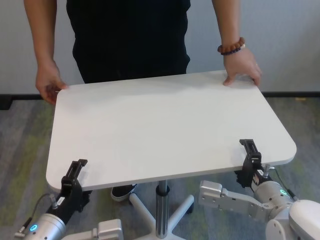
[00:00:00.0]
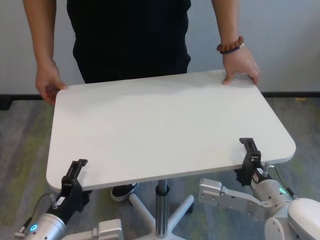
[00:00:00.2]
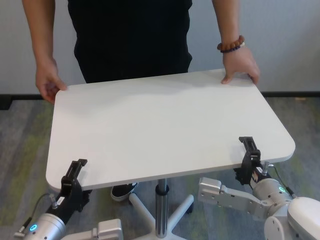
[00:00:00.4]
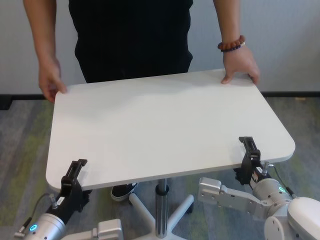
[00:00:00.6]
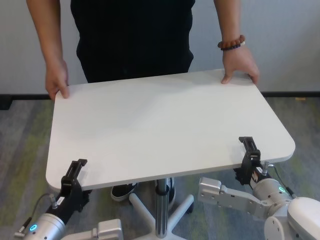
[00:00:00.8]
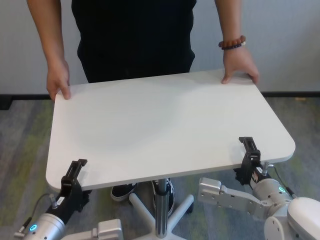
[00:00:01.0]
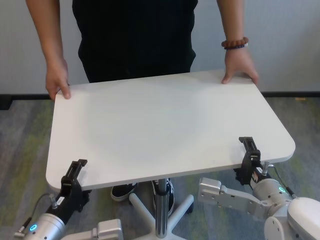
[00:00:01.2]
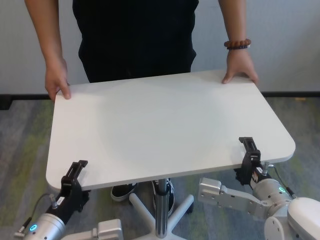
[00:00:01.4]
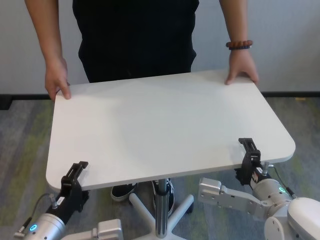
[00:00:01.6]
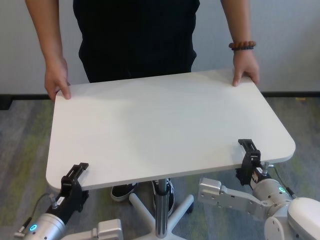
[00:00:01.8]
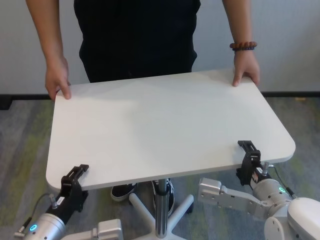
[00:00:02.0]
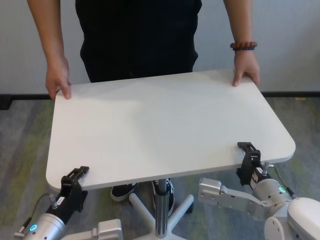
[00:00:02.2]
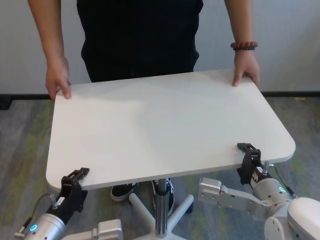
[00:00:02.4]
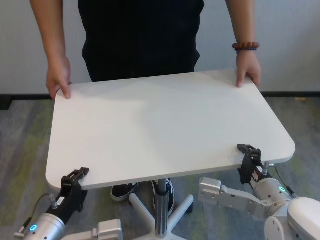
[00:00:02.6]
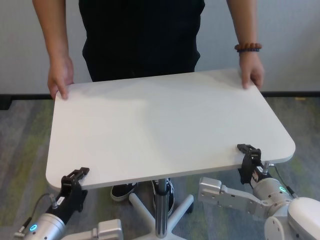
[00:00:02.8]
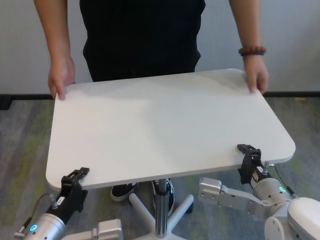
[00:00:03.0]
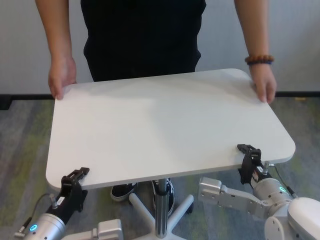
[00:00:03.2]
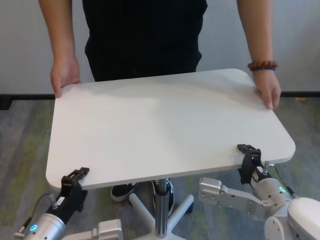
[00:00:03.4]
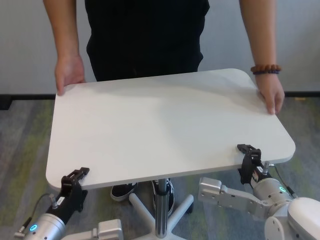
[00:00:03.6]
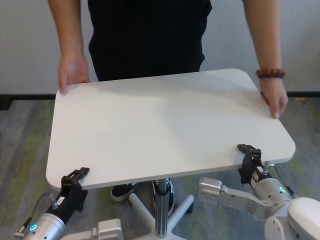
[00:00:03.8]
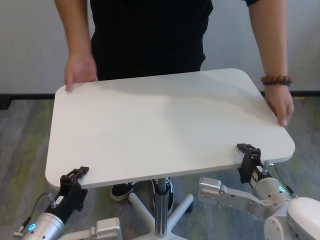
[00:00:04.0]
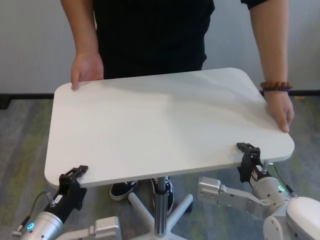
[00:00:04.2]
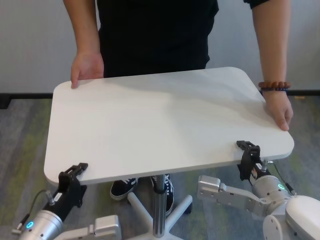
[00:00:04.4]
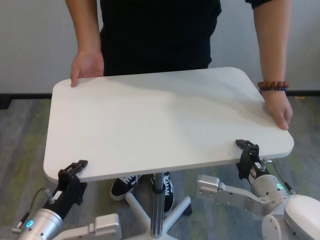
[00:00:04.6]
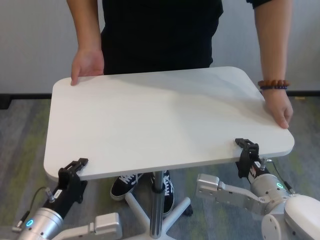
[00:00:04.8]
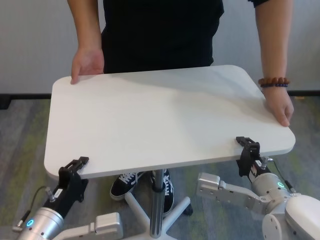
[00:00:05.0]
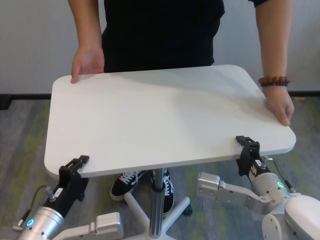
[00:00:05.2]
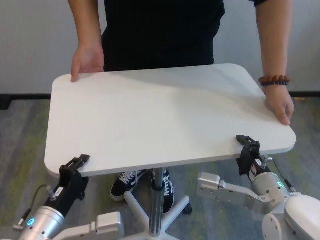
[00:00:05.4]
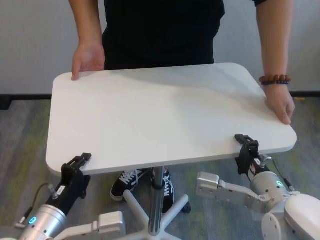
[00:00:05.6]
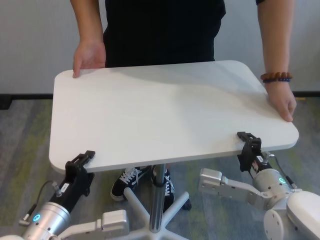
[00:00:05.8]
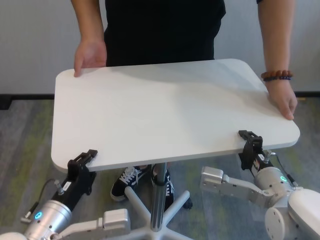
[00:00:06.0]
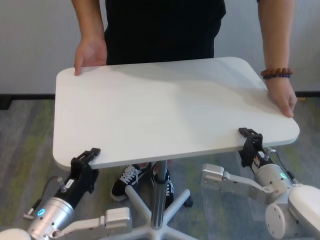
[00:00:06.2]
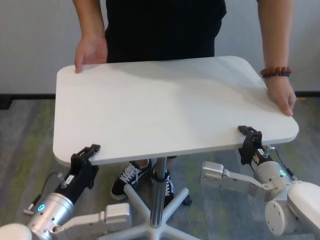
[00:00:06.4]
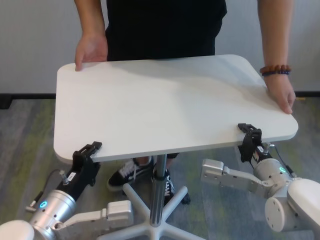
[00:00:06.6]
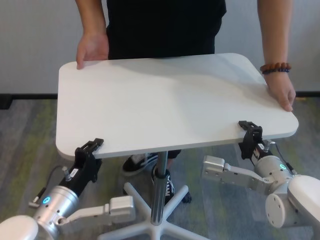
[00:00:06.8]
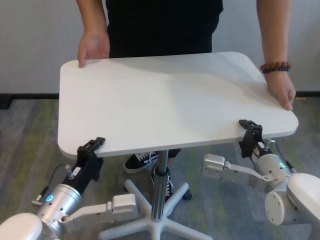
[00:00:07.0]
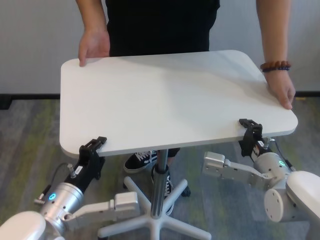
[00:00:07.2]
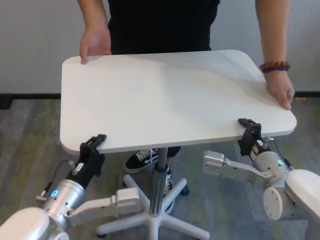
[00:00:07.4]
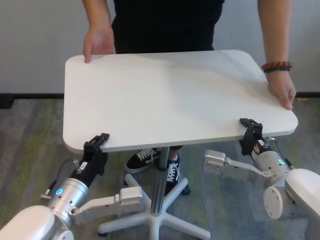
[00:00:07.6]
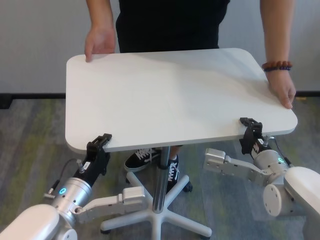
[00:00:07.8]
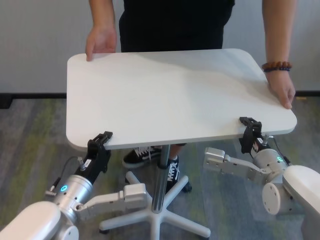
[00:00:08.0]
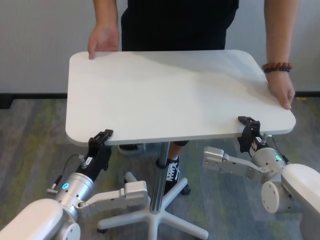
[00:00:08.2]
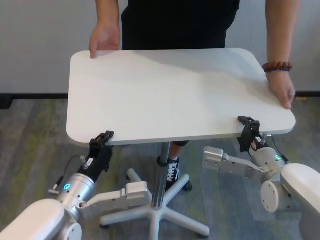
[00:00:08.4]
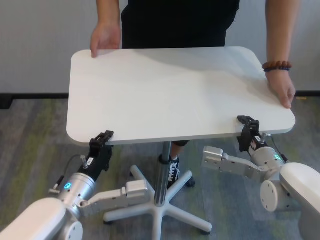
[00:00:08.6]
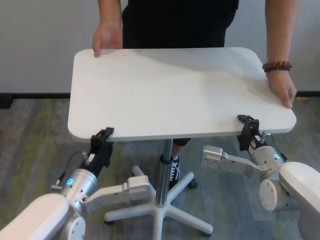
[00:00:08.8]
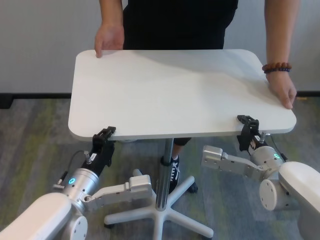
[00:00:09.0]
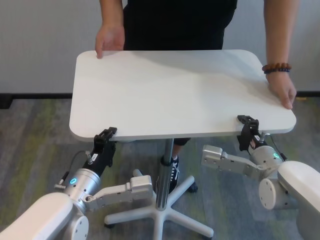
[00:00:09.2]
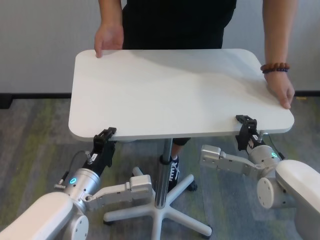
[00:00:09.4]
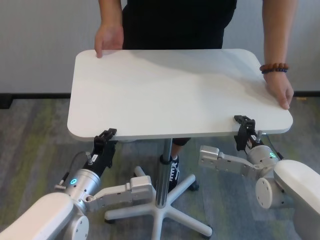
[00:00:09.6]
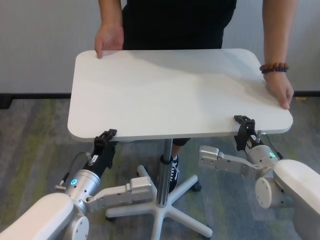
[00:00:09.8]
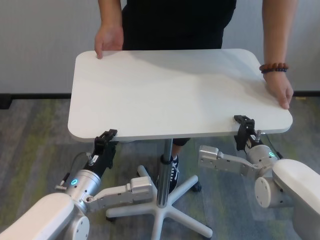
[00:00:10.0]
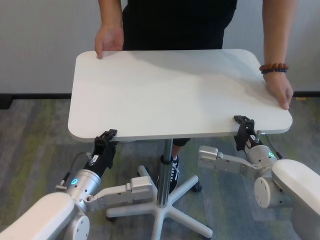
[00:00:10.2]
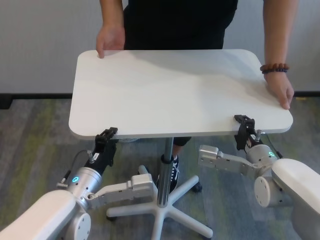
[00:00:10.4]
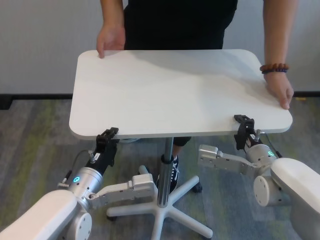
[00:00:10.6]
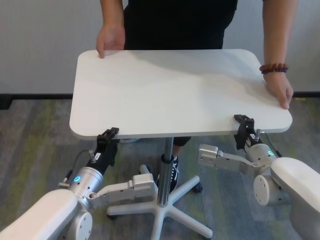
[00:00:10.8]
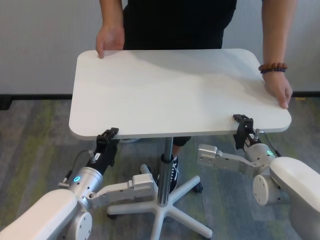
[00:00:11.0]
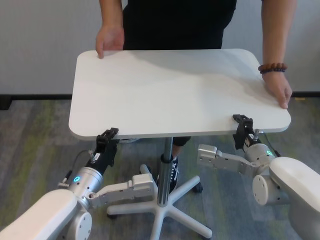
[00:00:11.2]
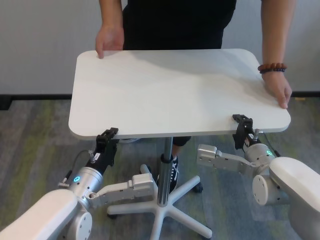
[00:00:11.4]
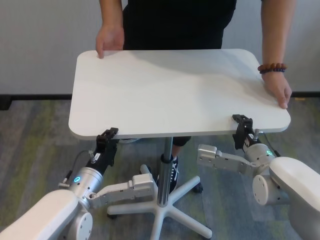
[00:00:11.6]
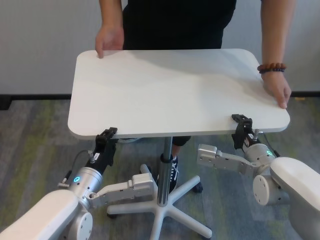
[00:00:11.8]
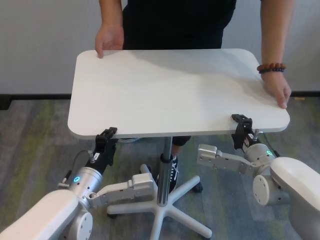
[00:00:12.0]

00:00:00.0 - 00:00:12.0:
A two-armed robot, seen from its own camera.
Task of the whole recording: human machine collaborative table moving.
Step, 00:00:00.0 - 00:00:02.6: Grasp the table with both grippers.

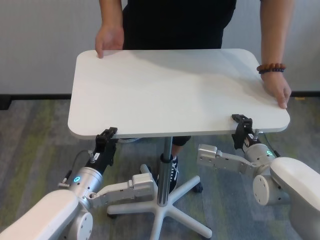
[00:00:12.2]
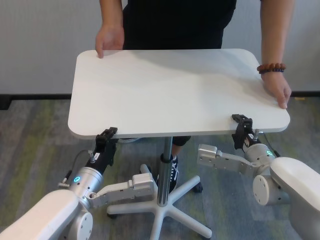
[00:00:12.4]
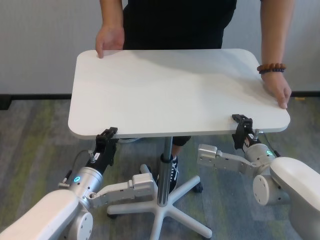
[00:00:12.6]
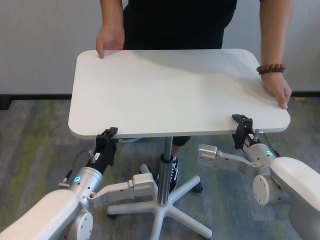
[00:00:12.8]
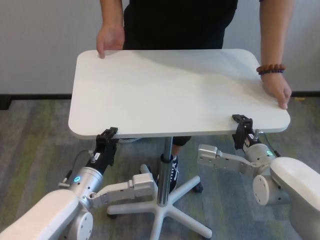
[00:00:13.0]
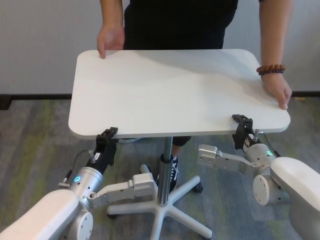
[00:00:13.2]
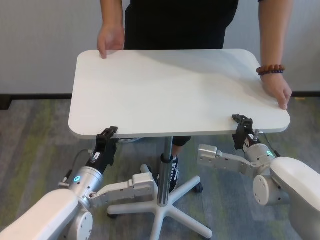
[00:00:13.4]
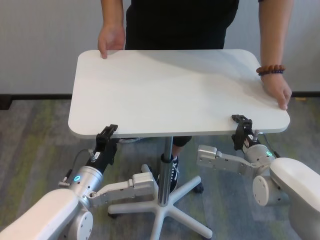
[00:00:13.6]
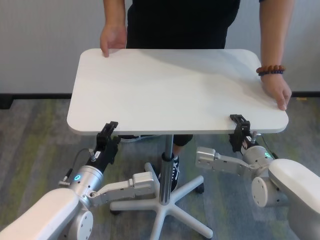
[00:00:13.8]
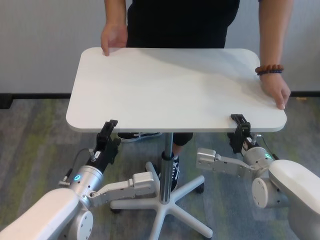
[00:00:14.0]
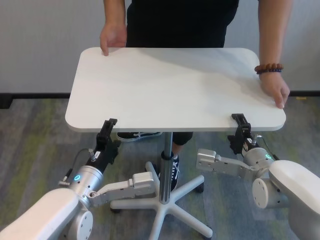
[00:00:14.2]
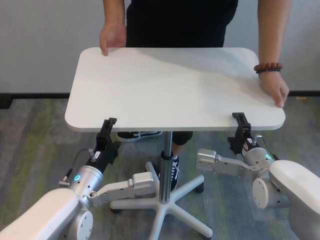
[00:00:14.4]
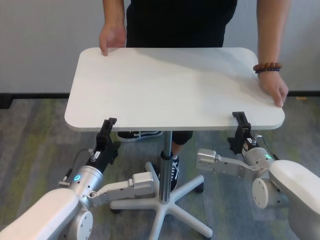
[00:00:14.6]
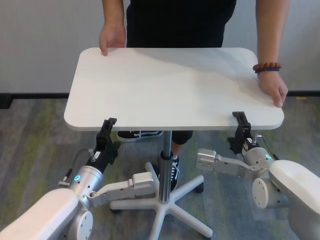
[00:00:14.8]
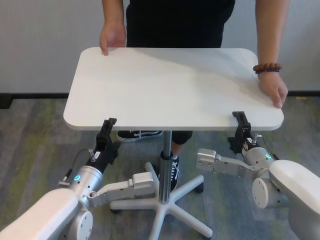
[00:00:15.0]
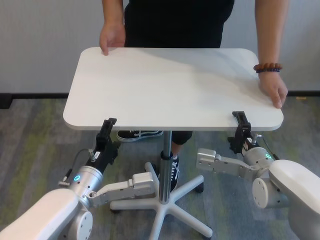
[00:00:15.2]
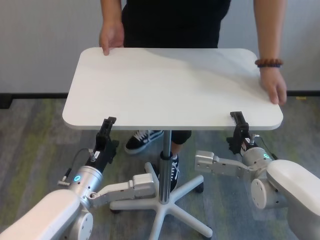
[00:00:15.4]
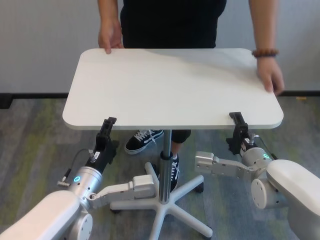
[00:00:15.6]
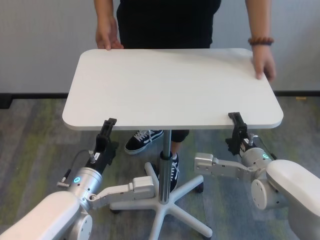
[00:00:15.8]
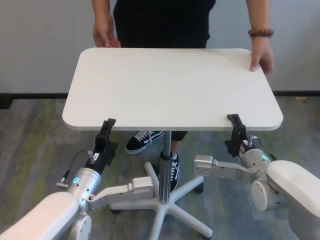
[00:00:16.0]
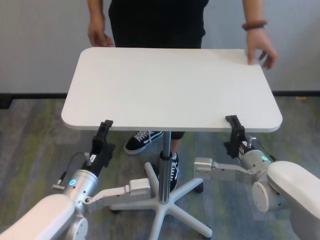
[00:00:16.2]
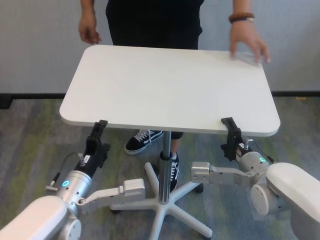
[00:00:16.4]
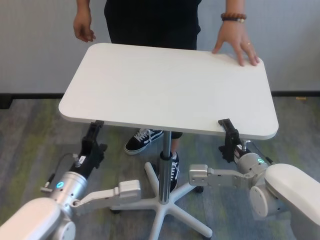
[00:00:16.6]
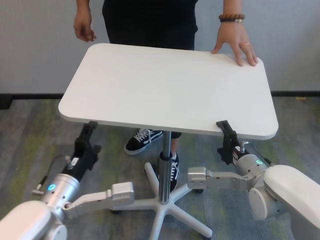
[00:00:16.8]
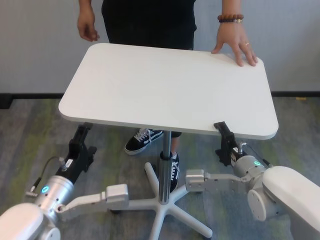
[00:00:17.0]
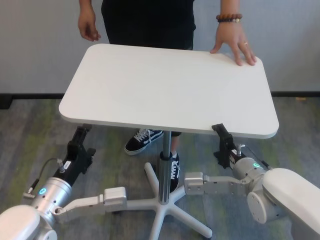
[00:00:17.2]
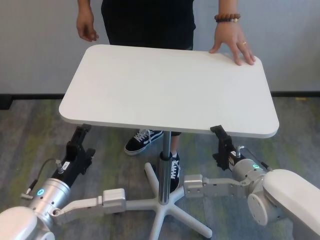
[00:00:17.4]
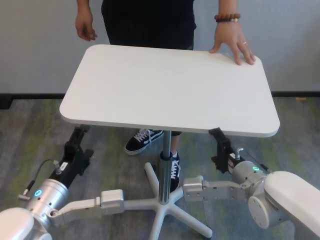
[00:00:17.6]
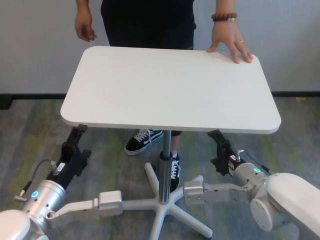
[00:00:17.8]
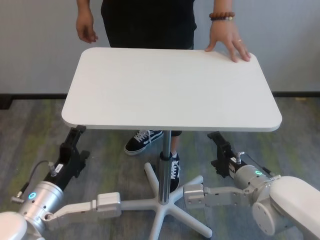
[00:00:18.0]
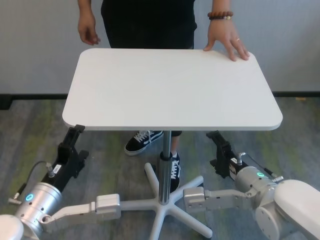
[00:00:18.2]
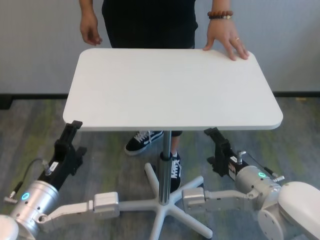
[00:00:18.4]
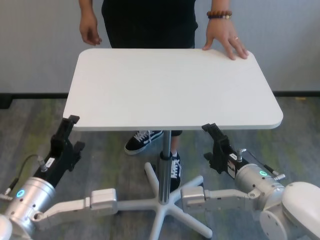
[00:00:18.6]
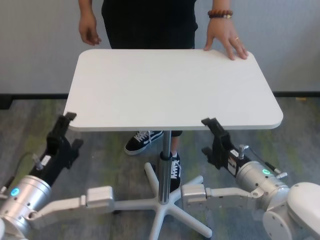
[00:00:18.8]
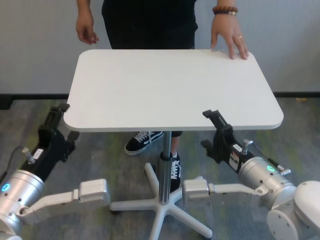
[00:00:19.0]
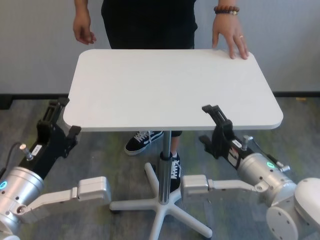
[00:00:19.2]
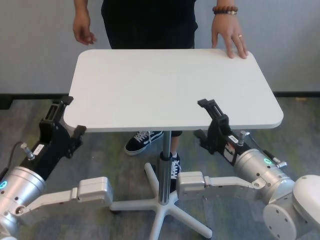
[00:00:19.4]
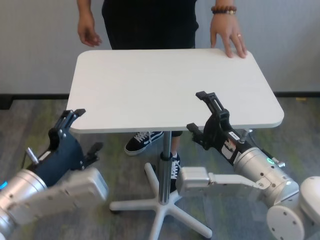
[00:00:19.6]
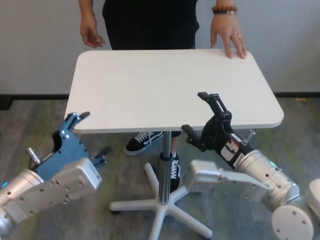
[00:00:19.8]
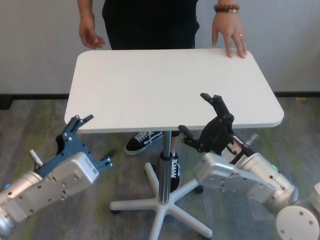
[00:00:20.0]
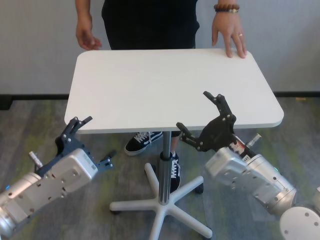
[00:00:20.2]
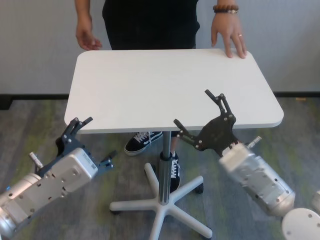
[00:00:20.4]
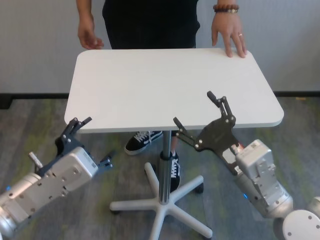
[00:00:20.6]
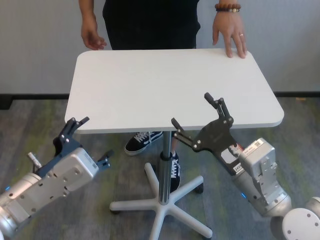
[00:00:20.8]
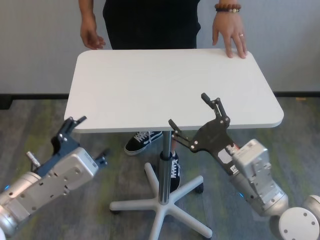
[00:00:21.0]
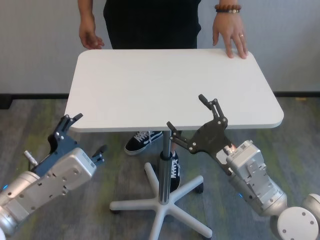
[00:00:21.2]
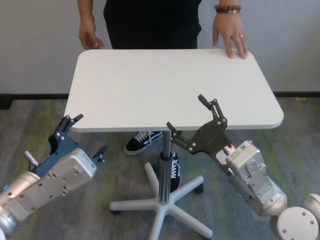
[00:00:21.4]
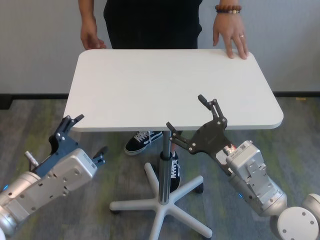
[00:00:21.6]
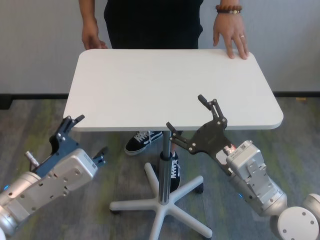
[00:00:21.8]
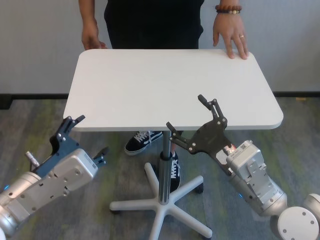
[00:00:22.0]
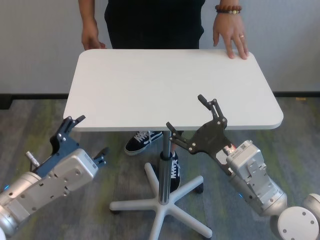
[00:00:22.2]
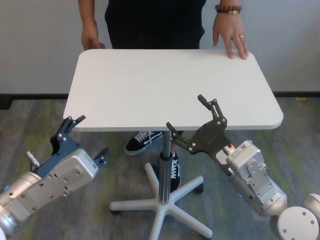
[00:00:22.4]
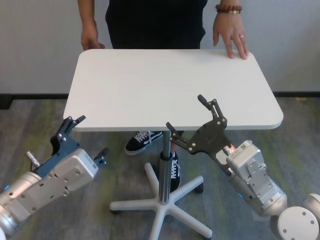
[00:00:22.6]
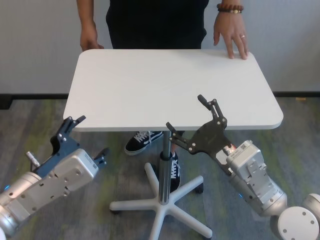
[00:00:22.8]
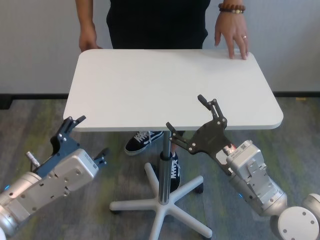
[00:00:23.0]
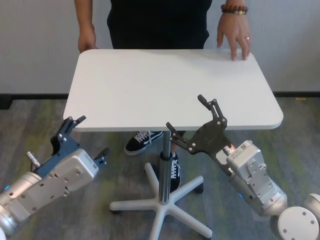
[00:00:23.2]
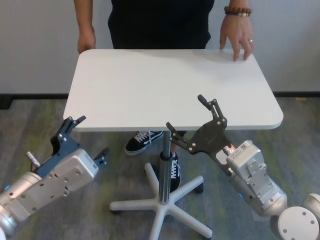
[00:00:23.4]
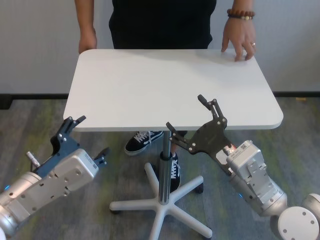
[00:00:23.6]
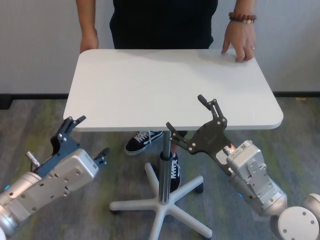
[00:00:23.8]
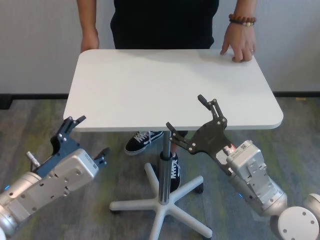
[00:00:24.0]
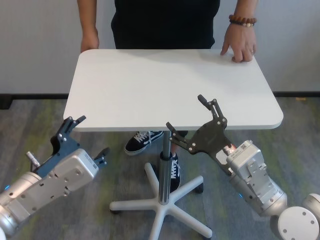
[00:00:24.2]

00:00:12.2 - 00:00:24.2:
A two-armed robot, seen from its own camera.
Task of the whole recording: human machine collaborative table moving.
Step, 00:00:12.2 - 00:00:15.0: Move the table forward with both grippers.
